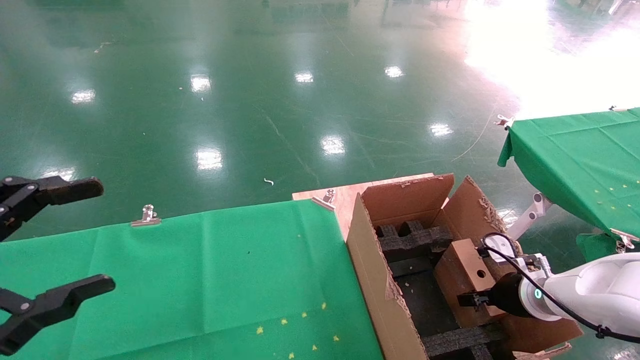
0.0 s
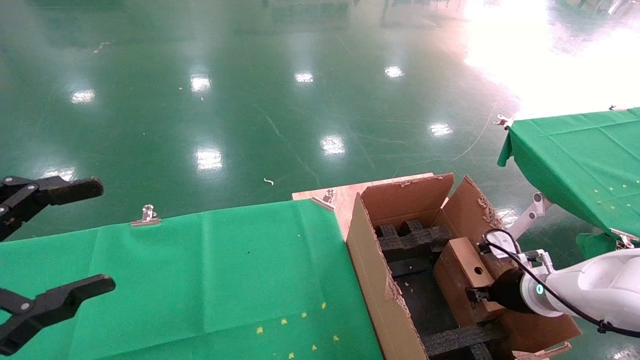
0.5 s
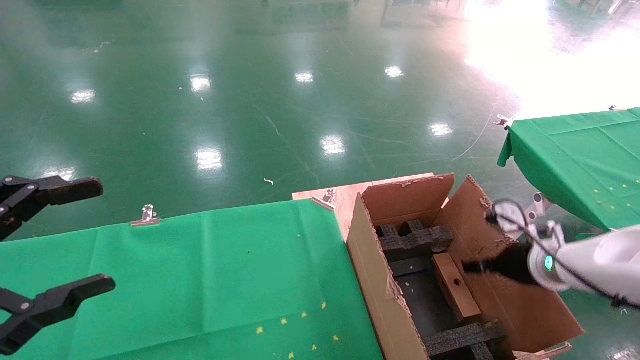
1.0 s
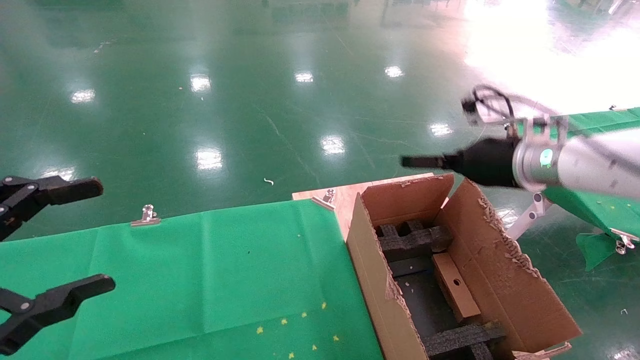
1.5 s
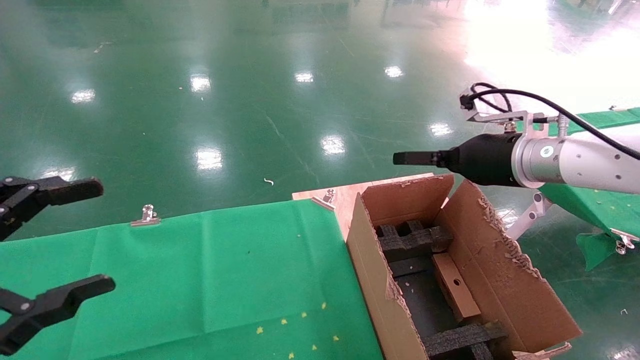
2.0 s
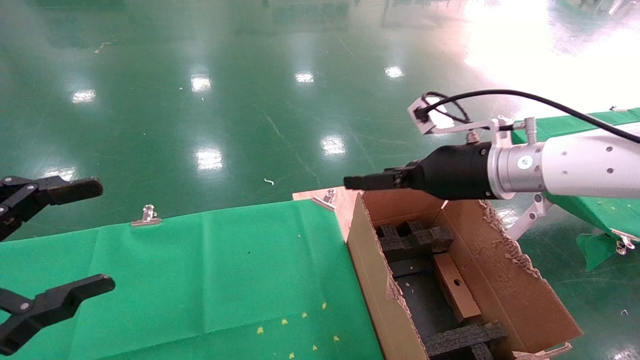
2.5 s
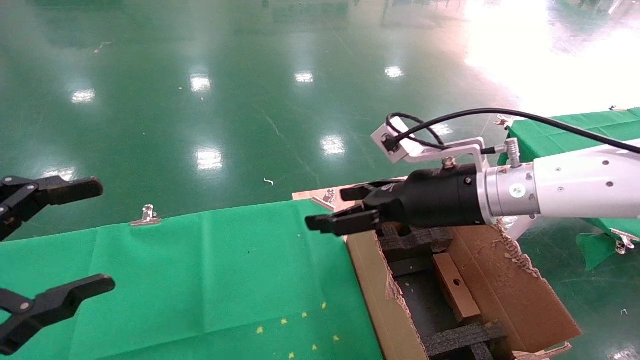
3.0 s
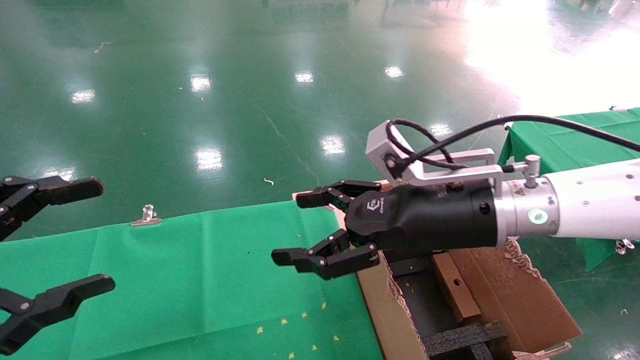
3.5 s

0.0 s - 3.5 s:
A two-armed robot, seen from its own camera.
Task of the whole recording: using a robotic arm to pick up a cardboard box and palace it the carton.
0.0 s - 2.0 s: The right gripper moves upward, roughly 25 cm, and opens.
2.0 s - 3.5 s: The right gripper heads to the left and backward, covering roughly 15 cm.
